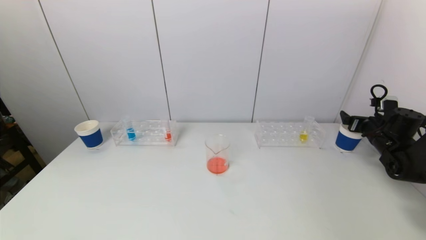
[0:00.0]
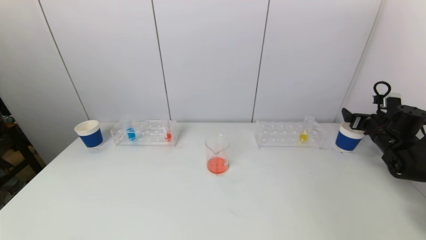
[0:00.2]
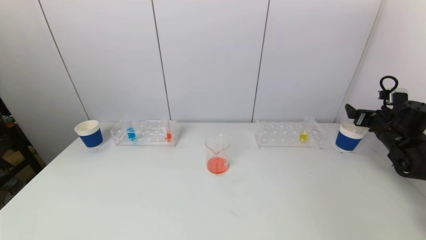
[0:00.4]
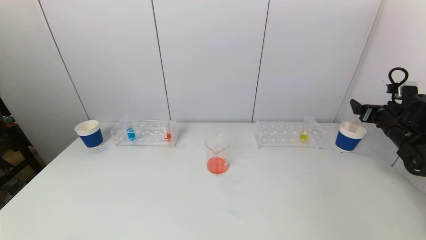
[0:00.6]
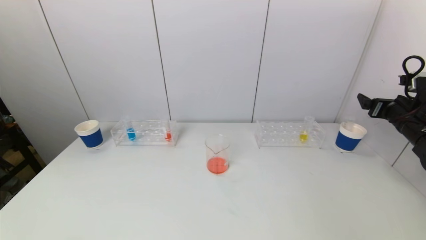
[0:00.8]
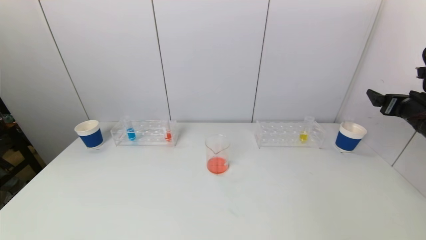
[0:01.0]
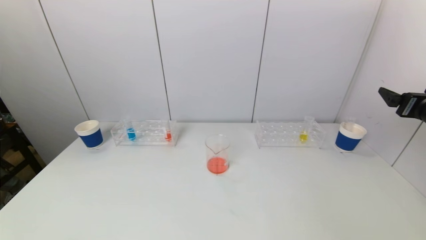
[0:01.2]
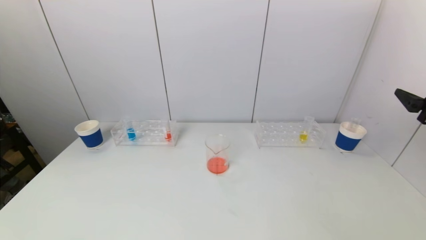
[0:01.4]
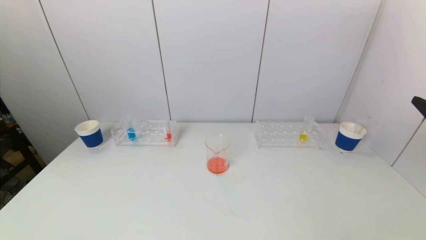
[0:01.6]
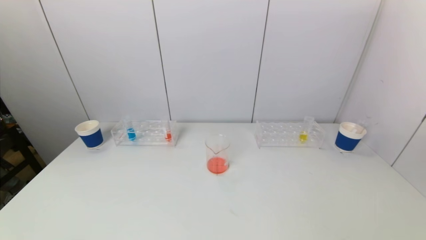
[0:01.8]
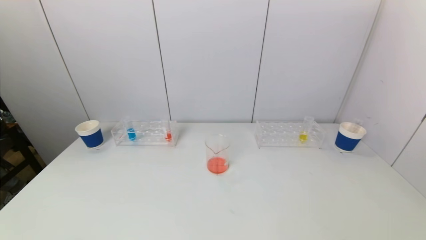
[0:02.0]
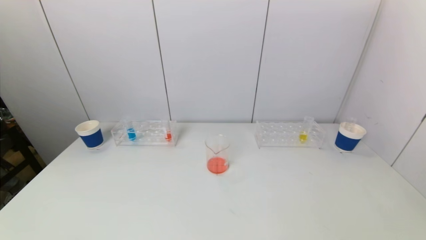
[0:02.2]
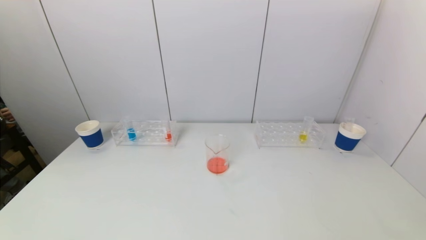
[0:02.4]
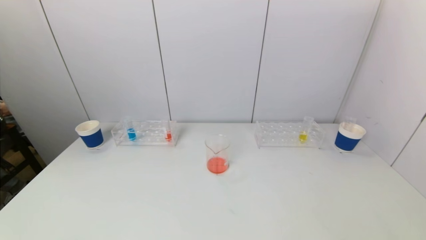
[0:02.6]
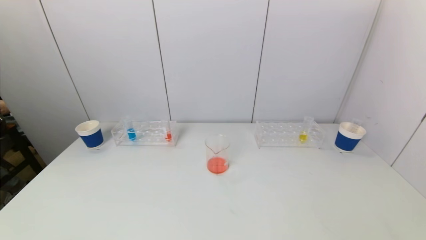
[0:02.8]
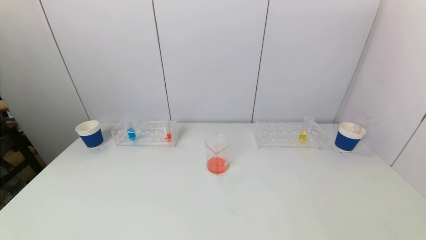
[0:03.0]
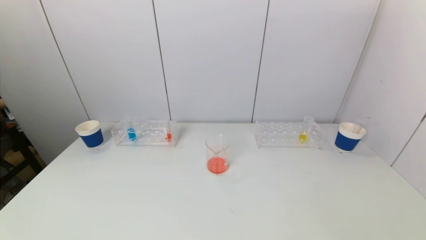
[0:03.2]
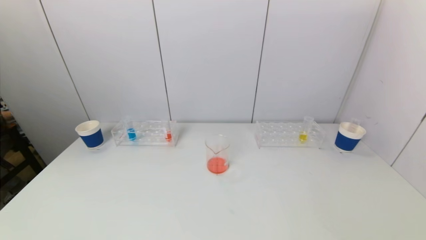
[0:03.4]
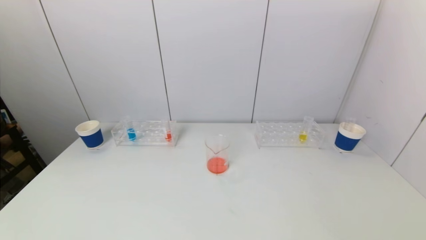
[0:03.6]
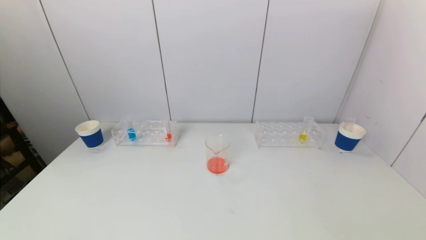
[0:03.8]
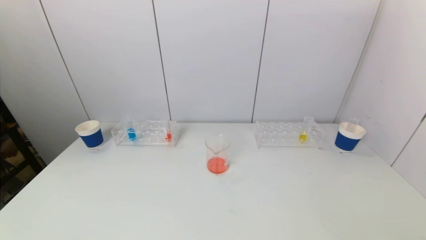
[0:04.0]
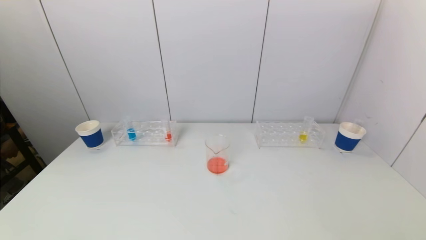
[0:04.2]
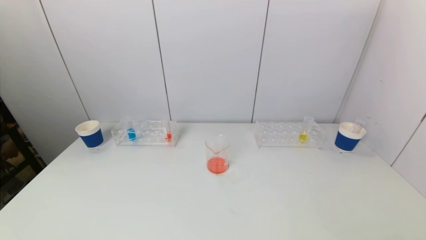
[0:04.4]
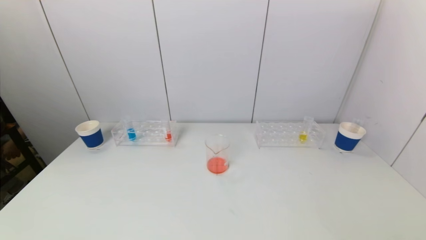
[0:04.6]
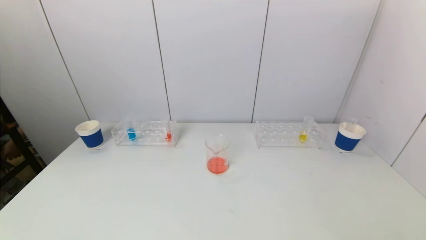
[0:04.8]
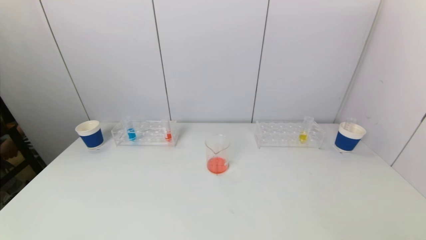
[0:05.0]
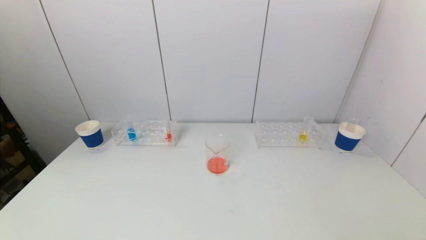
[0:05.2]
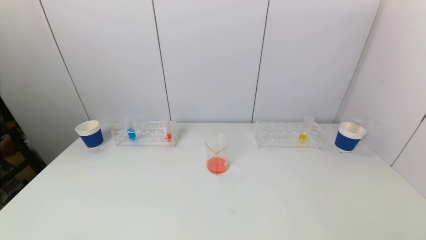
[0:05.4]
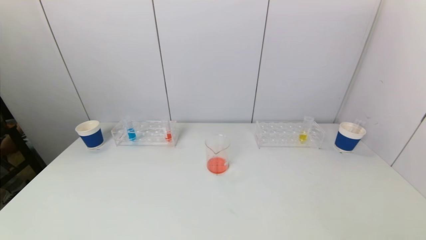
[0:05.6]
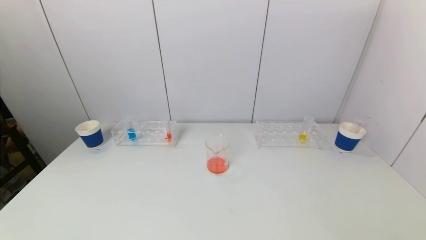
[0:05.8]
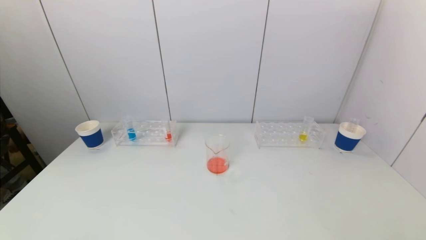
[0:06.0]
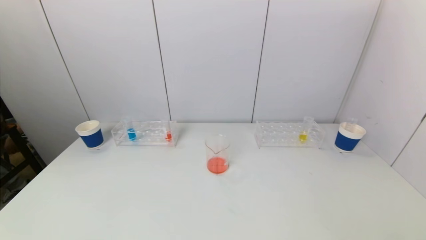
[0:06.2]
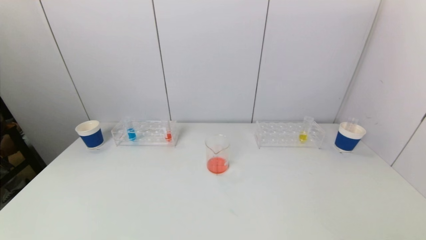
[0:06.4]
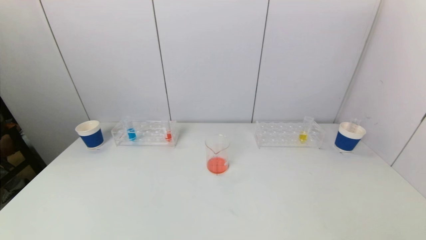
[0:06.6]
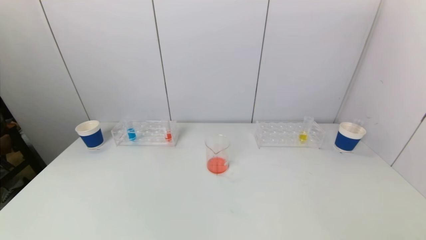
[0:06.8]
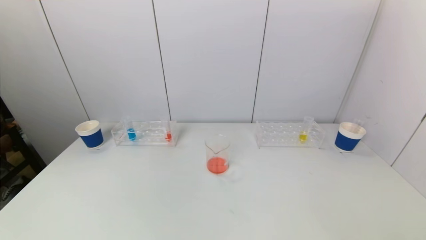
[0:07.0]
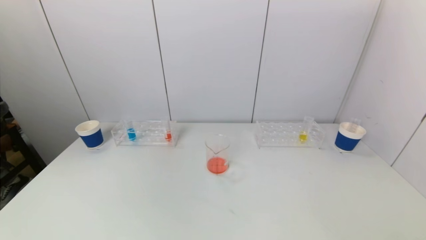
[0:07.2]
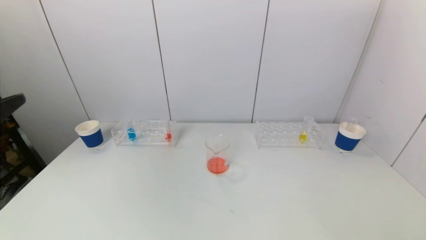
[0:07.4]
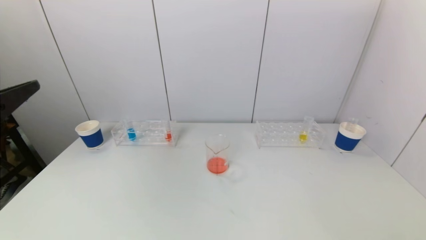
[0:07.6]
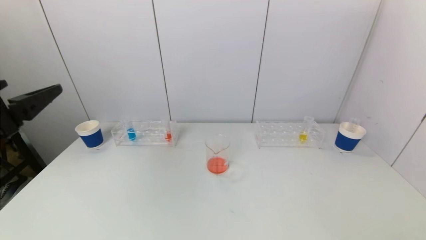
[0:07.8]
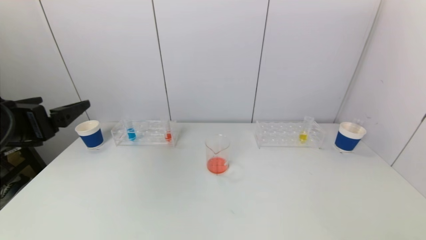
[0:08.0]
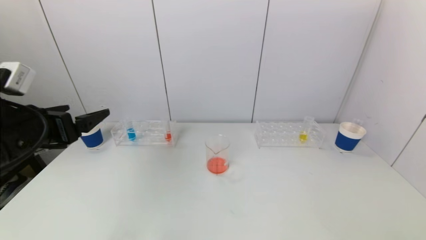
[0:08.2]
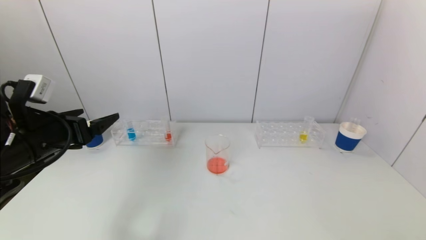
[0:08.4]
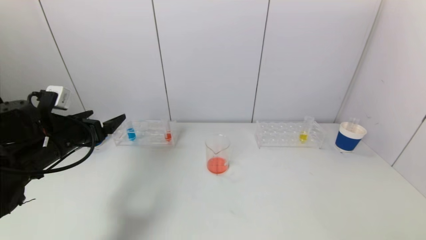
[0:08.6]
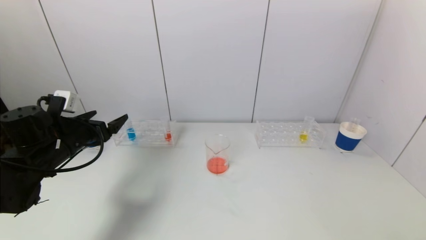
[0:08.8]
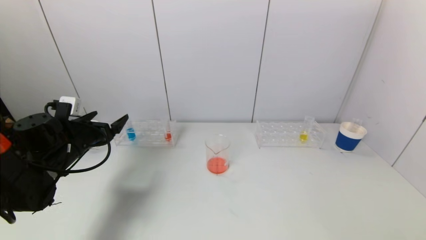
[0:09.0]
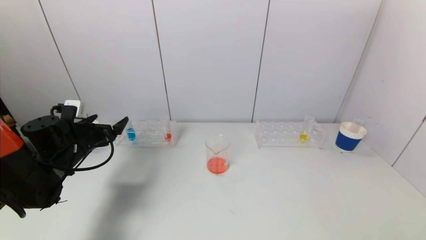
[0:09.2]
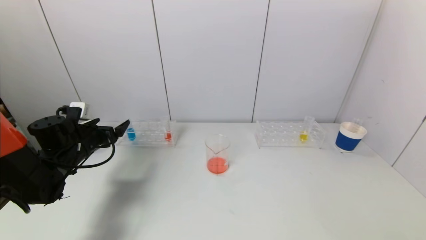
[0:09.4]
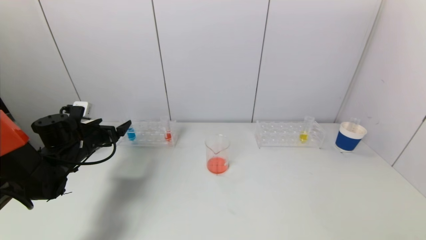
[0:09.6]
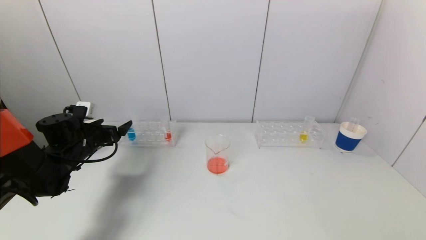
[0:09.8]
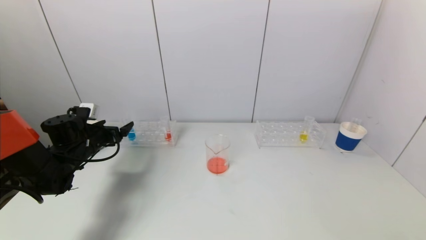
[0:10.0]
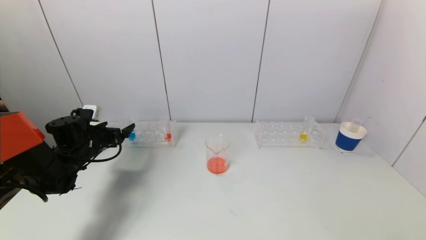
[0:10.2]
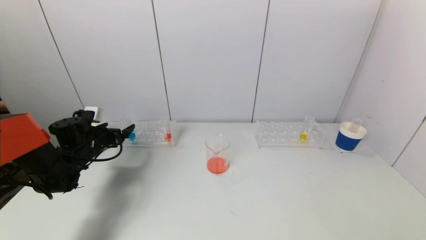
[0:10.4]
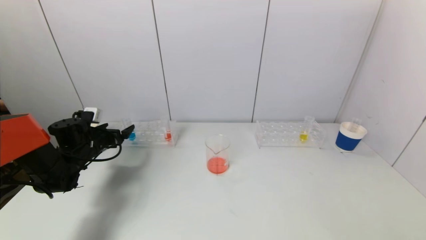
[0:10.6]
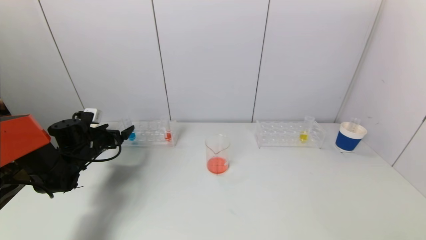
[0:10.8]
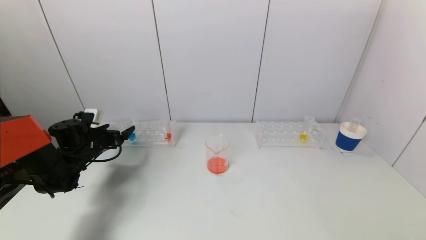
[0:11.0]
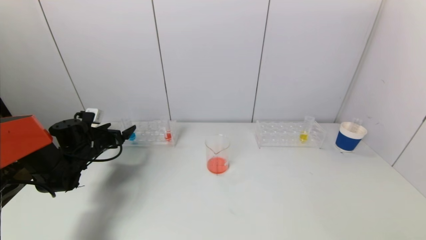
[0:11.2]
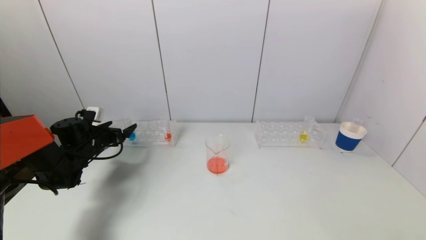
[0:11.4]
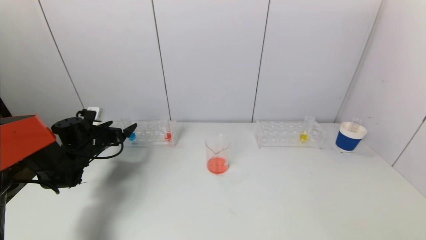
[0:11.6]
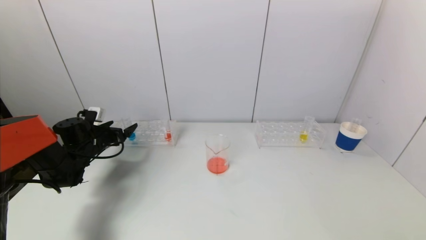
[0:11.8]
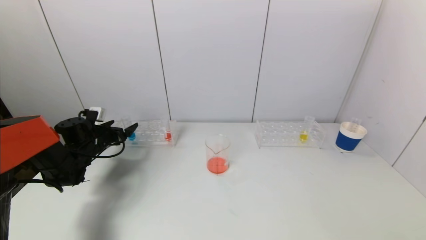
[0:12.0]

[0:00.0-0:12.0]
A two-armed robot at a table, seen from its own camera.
Task of the whole recording: pick up a test tube with pigment on left test tube rack and a test tube with pigment on right test tube rack by grippers and pour them into the beaker.
0:00.0 to 0:01.6: The right gripper travels backward and upward by about 30 cm.
0:06.0 to 0:07.6: The left gripper is displaced upward and forward by approximately 25 cm.
0:07.6 to 0:09.0: The left gripper goes about 25 cm forward and downward.
0:09.0 to 0:10.4: The left gripper moves forward and downward, about 10 cm.
0:10.4 to 0:12.0: The grippers stay close to where they were, moving slightly.

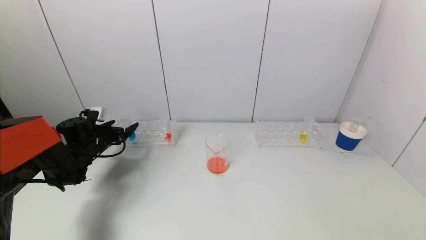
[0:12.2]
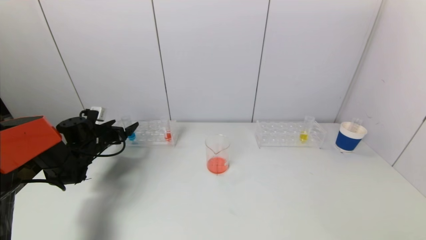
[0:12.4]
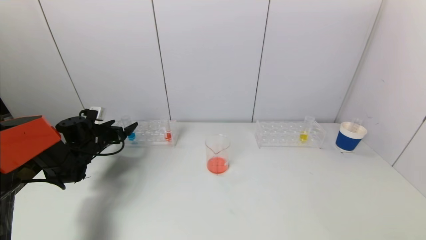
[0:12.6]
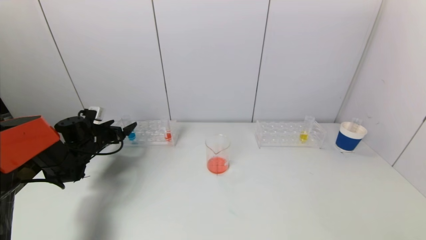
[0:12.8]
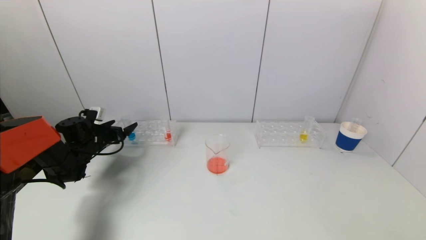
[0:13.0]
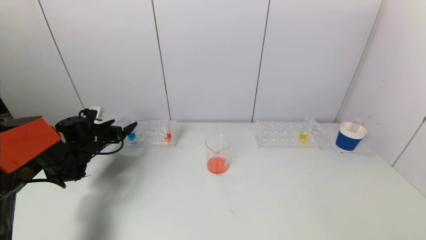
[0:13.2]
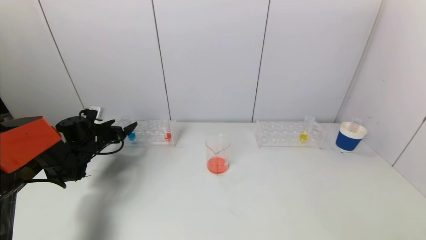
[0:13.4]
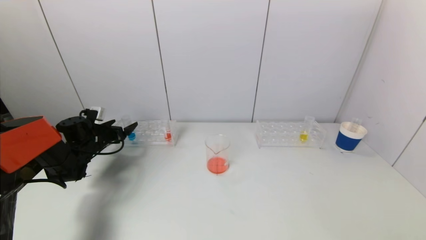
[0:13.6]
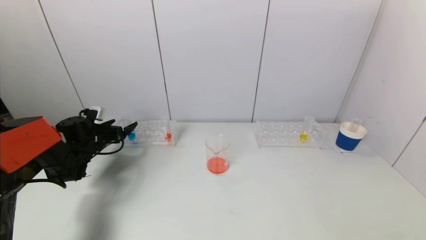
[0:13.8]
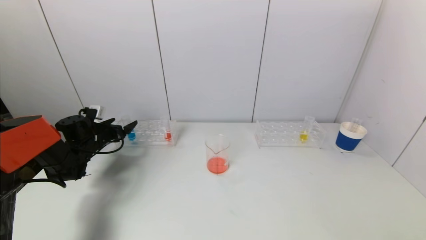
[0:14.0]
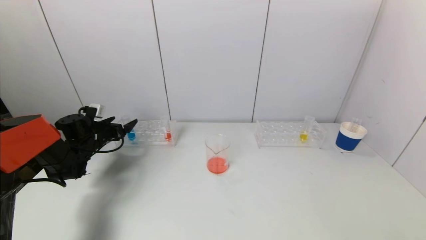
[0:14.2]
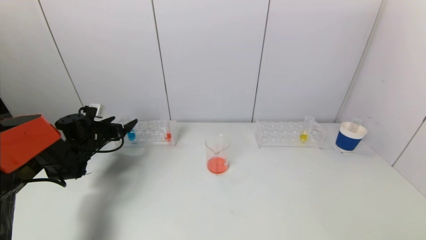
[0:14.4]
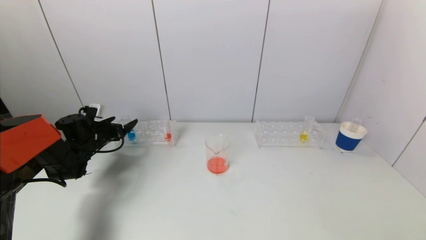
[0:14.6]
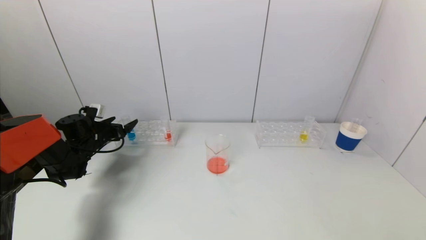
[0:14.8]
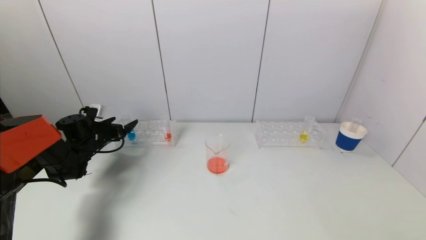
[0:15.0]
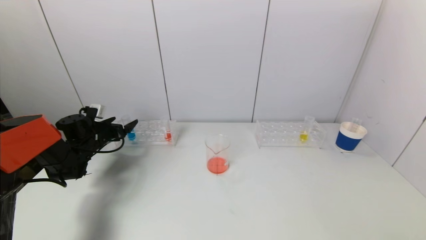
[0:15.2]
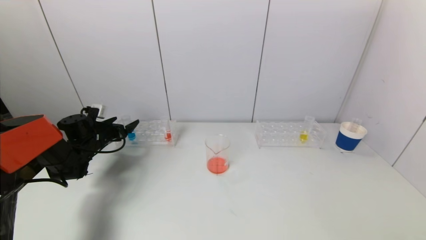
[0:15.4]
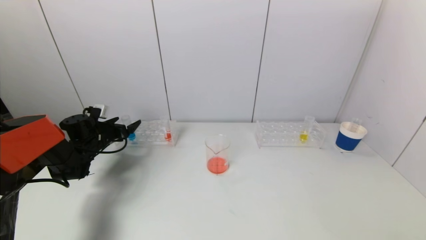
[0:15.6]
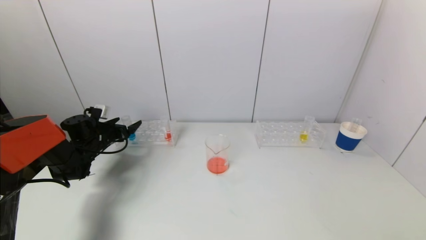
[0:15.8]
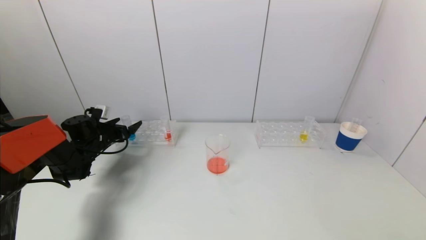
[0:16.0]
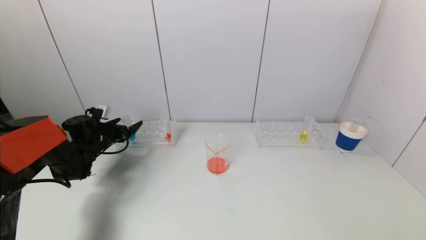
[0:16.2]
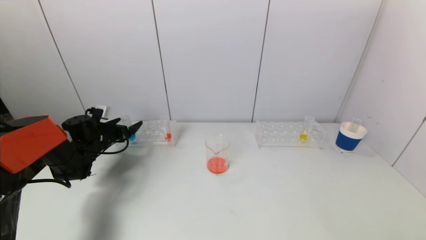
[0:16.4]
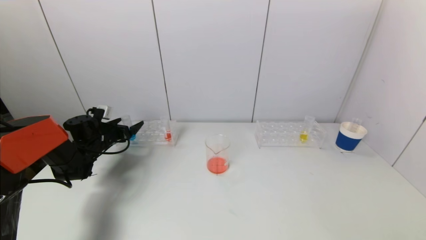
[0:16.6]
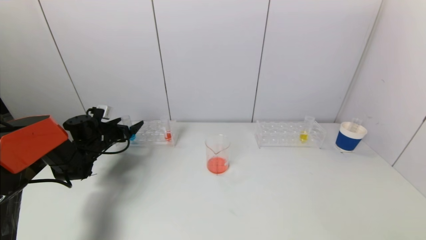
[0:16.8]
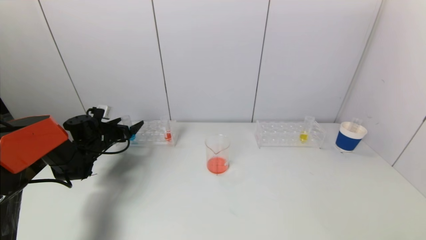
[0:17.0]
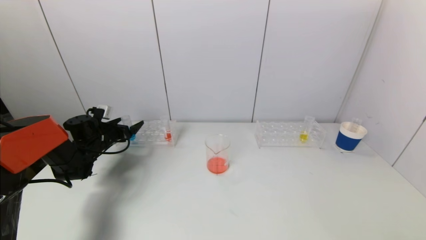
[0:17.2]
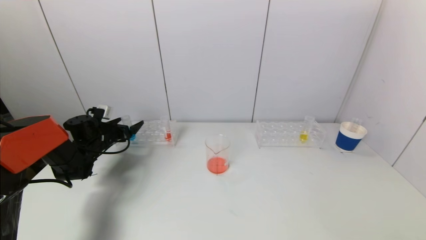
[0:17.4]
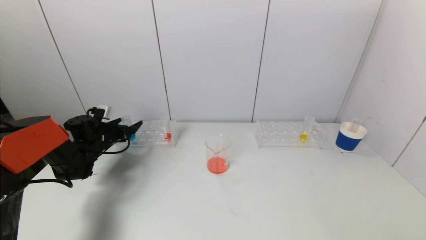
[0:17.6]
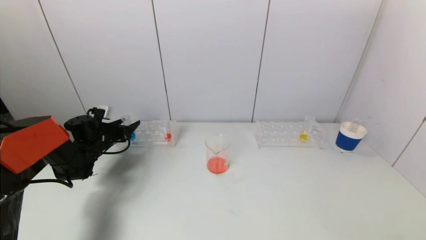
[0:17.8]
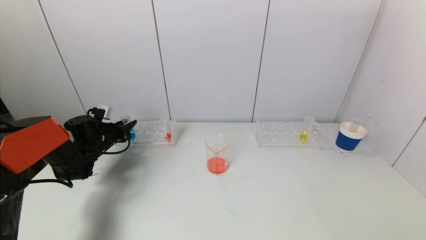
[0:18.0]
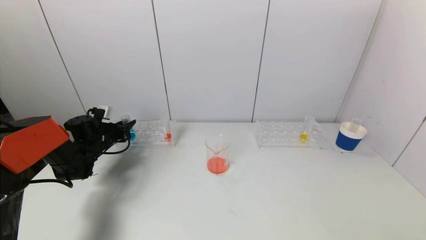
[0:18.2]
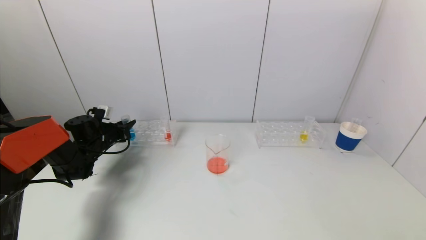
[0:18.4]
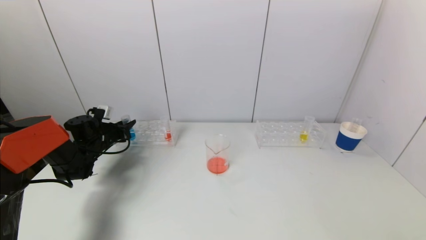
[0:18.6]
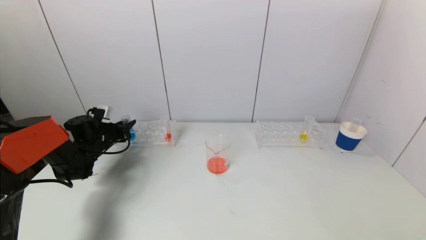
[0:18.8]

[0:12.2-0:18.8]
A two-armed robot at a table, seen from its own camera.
Task of the whole recording: pick up a test tube with pigment on left test tube rack and a test tube with pigment on right test tube rack by grippers and pour them into the beaker.
Step, 0:12.2 to 0:18.2: Grasp the blue reagent with the left gripper.
0:12.2 to 0:13.8: The grippers make only small movements.
0:13.8 to 0:15.4: Both grippers stay about where they are.
0:15.4 to 0:17.2: Neither gripper changes place.
0:17.2 to 0:18.8: The left gripper closes up.
